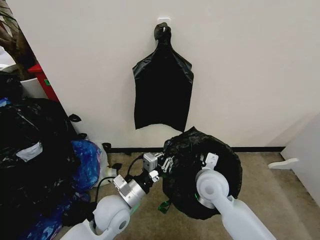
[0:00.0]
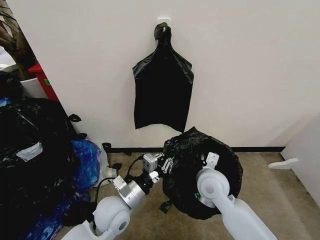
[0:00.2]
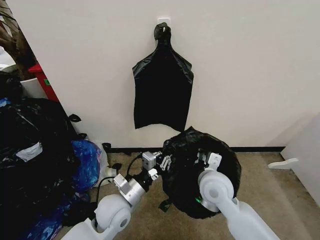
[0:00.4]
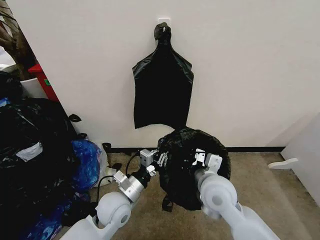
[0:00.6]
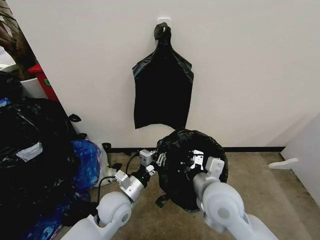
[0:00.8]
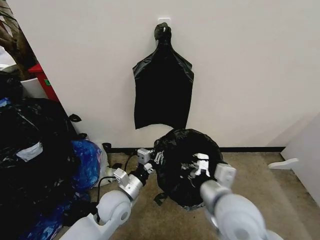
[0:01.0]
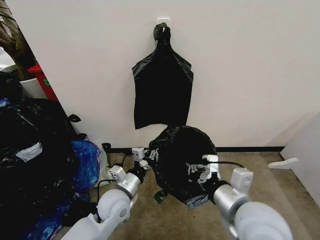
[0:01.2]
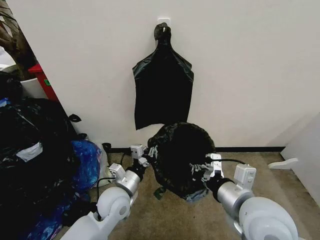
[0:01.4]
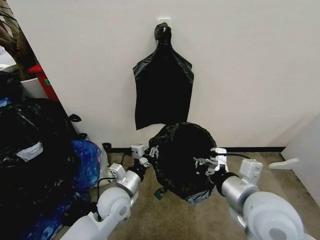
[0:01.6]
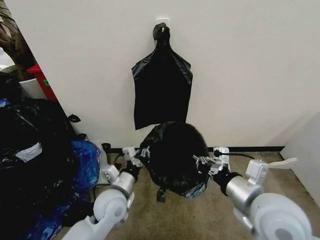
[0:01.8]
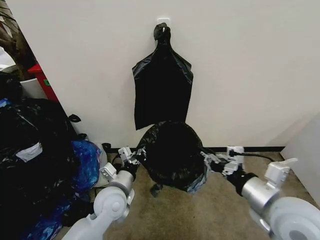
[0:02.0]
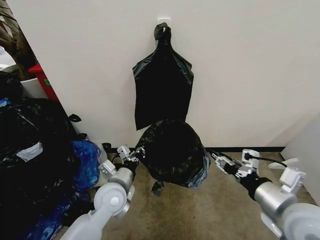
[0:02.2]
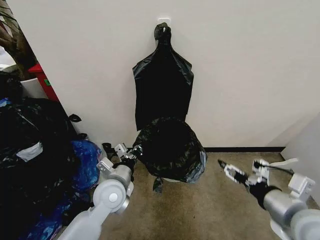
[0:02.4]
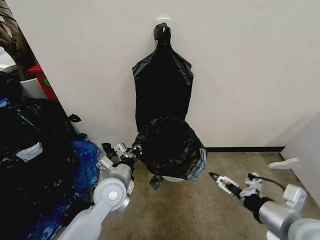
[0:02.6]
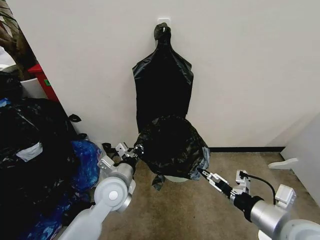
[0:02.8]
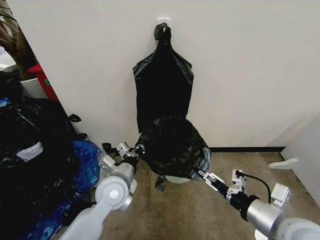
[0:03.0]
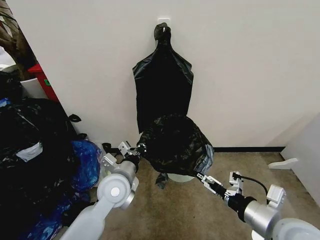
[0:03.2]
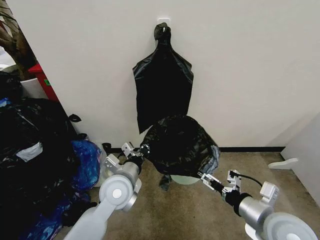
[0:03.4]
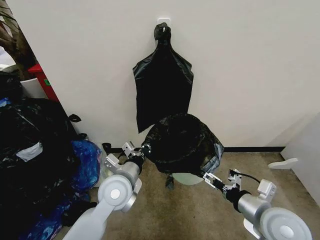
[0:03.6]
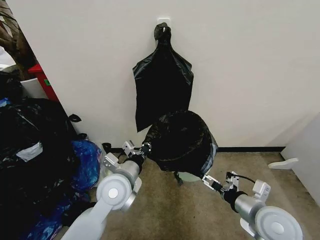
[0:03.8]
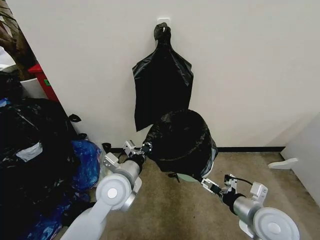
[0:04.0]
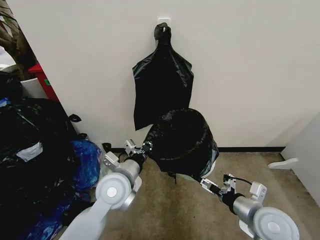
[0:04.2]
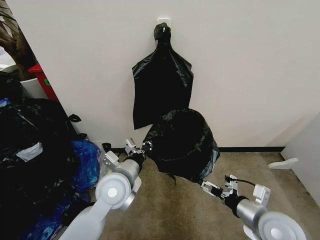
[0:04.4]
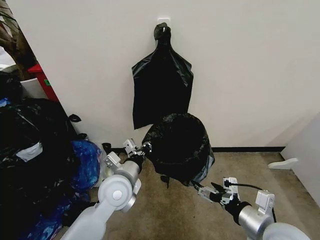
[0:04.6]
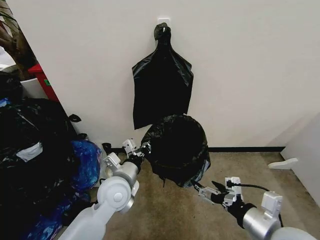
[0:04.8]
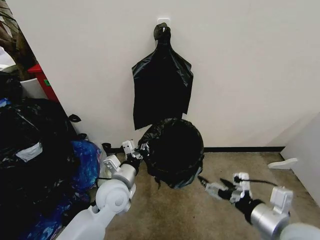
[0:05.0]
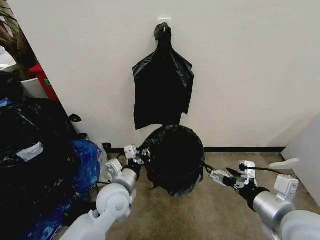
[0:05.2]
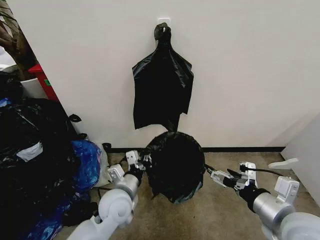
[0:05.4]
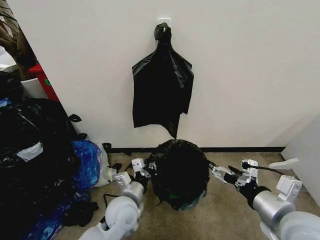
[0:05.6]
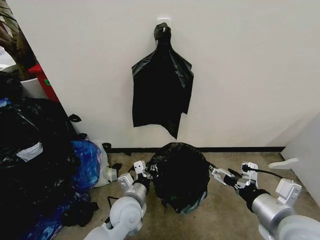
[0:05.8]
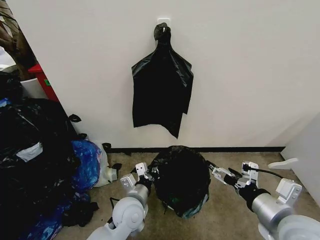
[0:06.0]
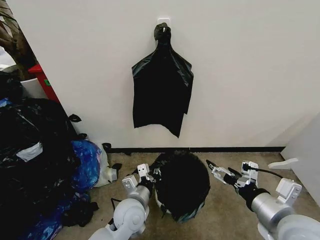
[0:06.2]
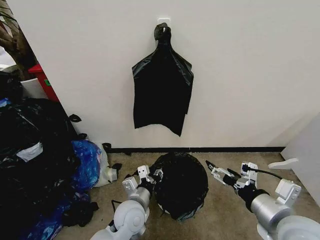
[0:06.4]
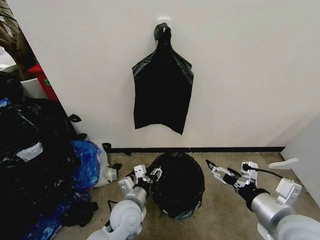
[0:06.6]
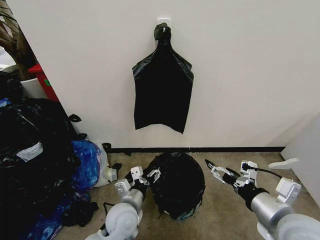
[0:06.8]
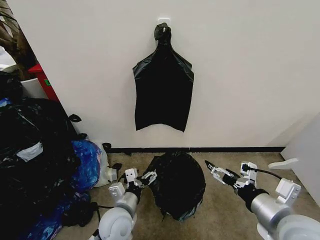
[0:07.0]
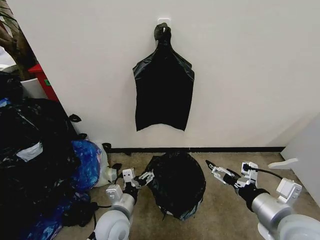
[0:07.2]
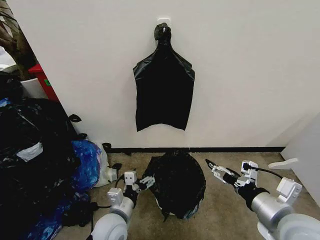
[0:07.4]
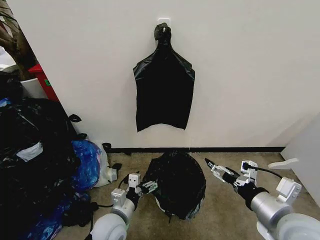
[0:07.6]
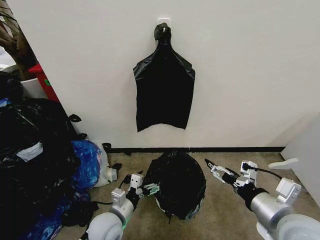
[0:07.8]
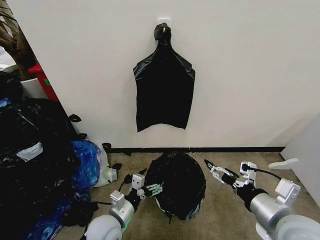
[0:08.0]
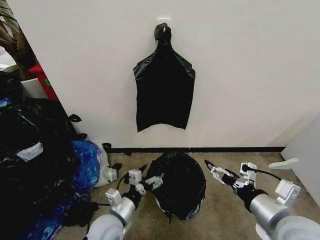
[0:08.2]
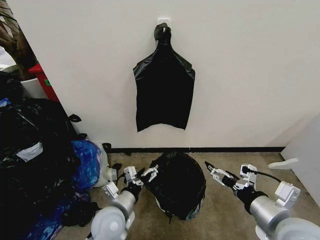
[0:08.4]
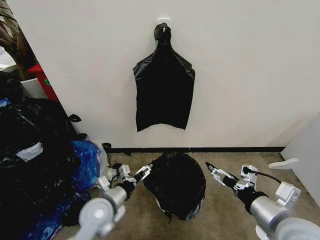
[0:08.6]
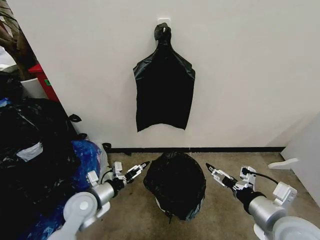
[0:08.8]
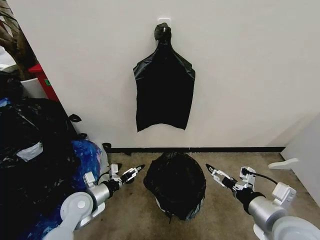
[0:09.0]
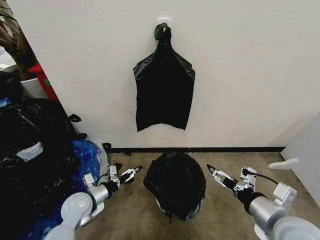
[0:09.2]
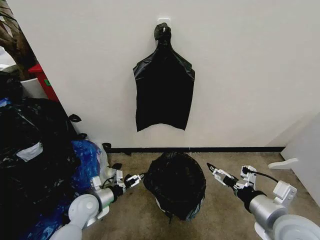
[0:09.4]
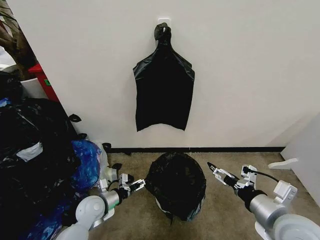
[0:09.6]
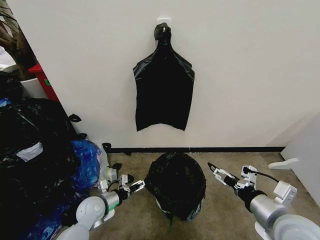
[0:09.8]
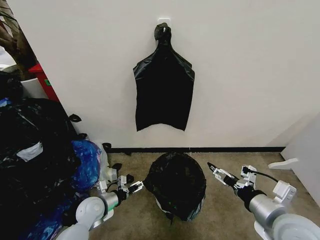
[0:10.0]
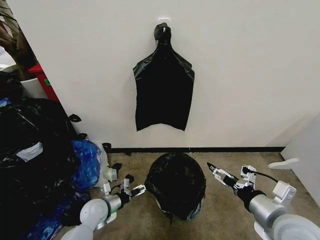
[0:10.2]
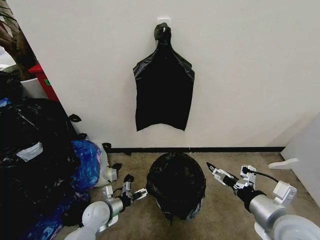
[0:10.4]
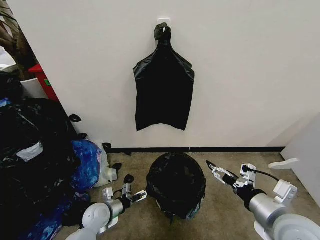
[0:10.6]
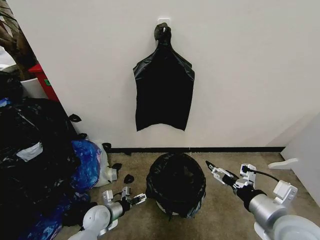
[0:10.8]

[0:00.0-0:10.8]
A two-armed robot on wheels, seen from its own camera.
Task of the whole recording: Place the garbage bag over the trash bin.
0:00.0 to 0:01.6: The right gripper travels backward, upward and to the right by approximately 15 cm.
0:01.6 to 0:03.0: The right gripper goes approximately 5 cm to the right, and opens up.
0:03.0 to 0:04.6: The right gripper is displaced downward by about 5 cm.
0:04.6 to 0:06.2: The left gripper heads downward, covering roughly 10 cm, while the right gripper travels upward by some 5 cm.
0:06.2 to 0:07.8: The left gripper moves to the left, roughly 5 cm, and opens up.
0:07.8 to 0:09.2: The left gripper moves to the left and forward, roughly 15 cm.
0:09.2 to 0:10.8: The left gripper shifts roughly 10 cm downward.

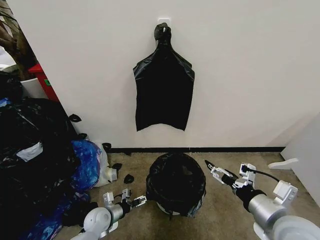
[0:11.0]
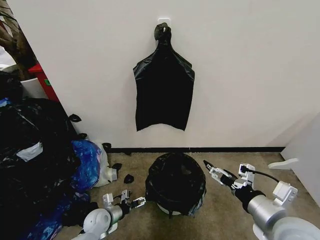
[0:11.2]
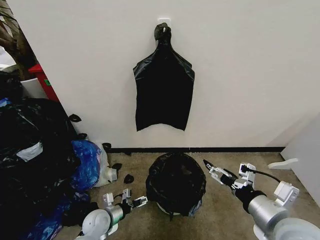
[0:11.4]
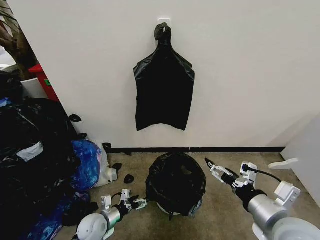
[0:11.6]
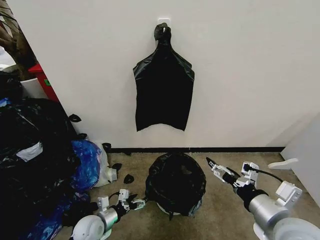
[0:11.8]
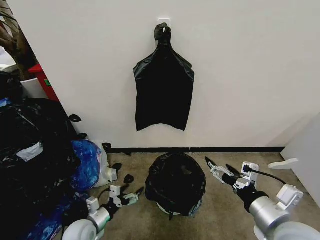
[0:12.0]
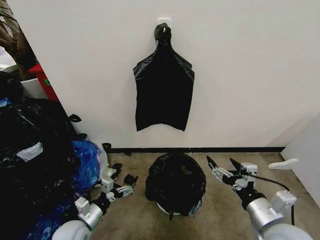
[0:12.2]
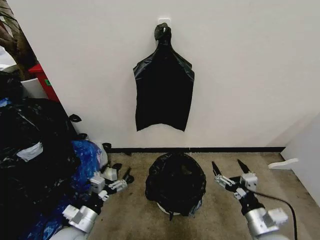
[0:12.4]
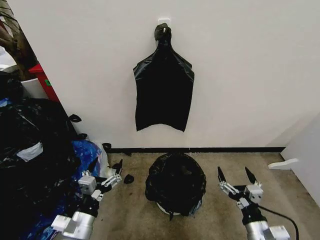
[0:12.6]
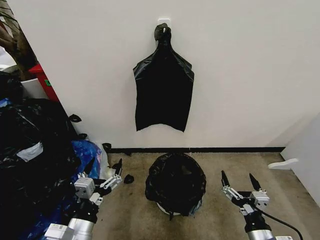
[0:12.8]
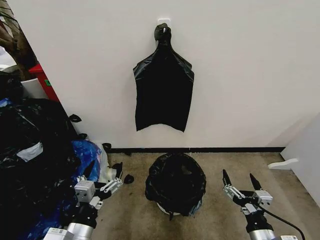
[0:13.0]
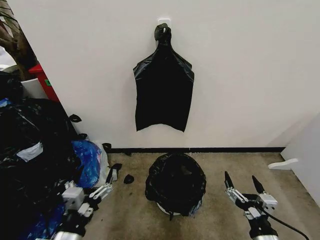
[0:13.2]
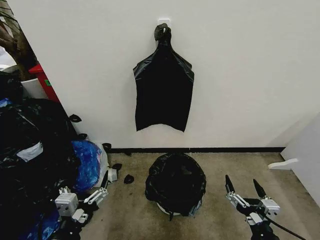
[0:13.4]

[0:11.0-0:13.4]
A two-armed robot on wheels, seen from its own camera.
Task of the whole recording: Place the garbage bag over the trash bin.
0:11.0 to 0:12.2: The left gripper is displaced upward and backward by some 10 cm.
0:12.2 to 0:13.4: The right gripper goes some 10 cm backward and downward; the left gripper goes about 20 cm backward and upward.
